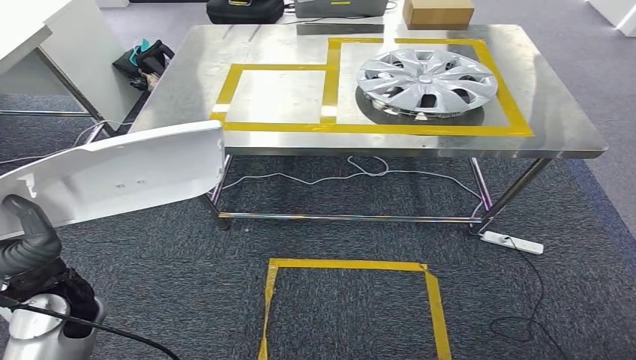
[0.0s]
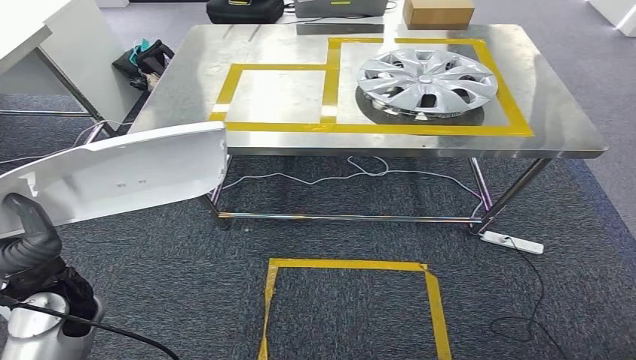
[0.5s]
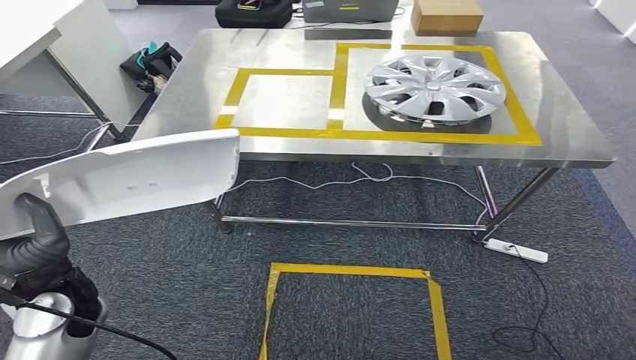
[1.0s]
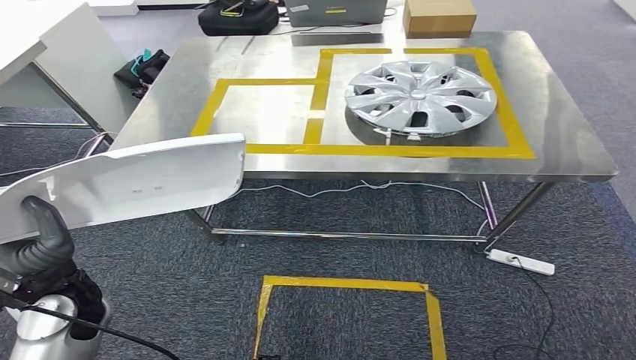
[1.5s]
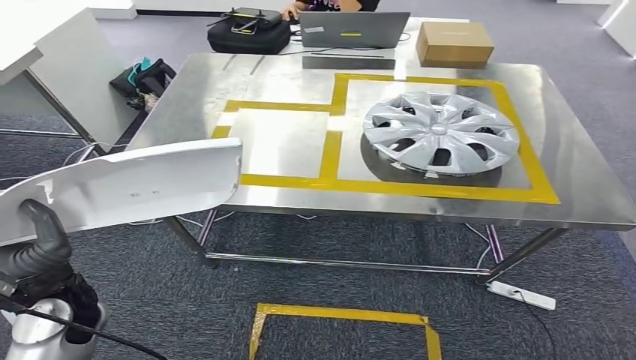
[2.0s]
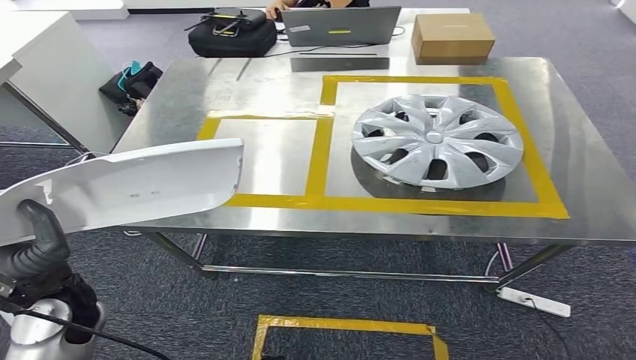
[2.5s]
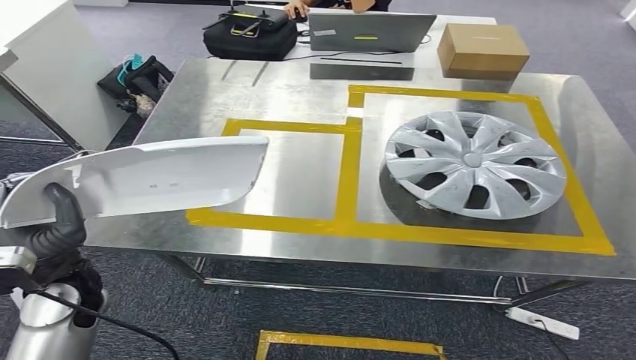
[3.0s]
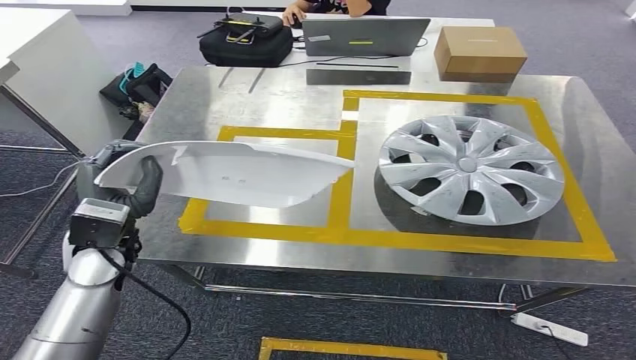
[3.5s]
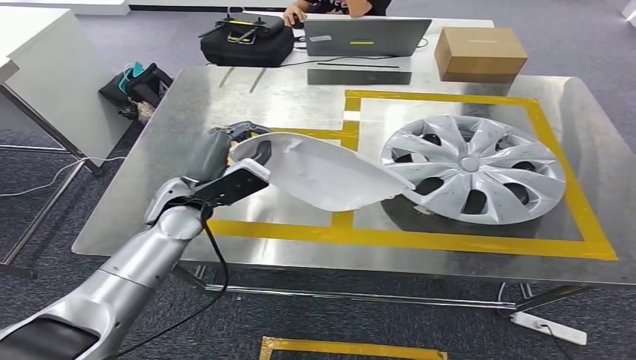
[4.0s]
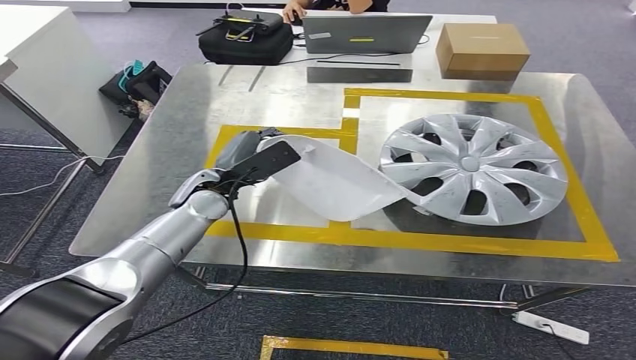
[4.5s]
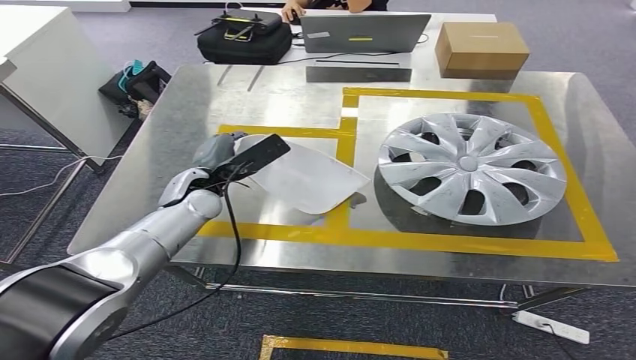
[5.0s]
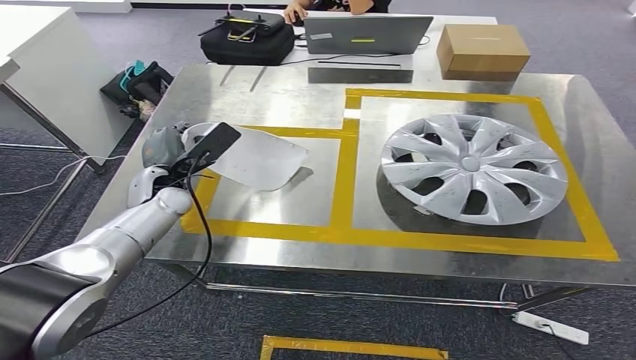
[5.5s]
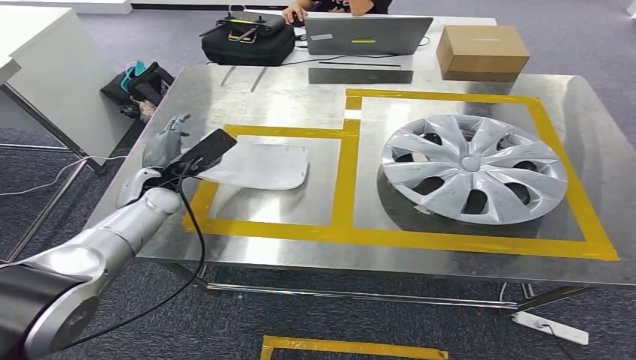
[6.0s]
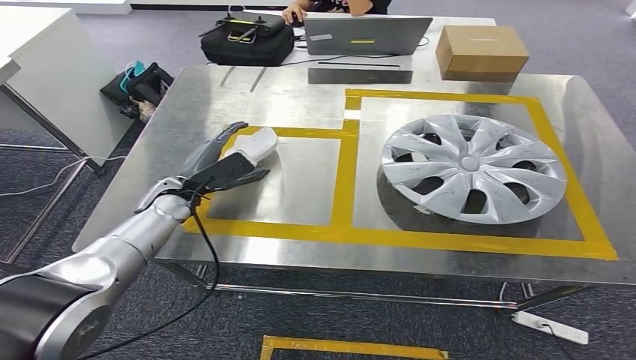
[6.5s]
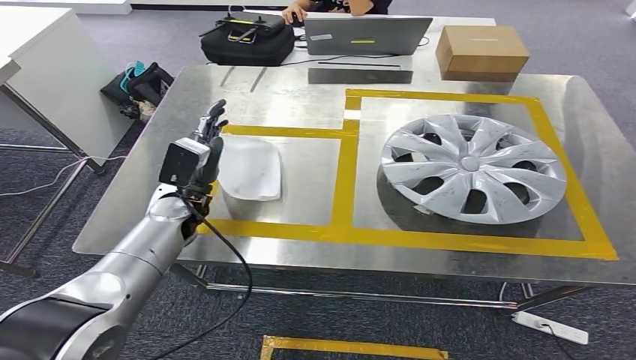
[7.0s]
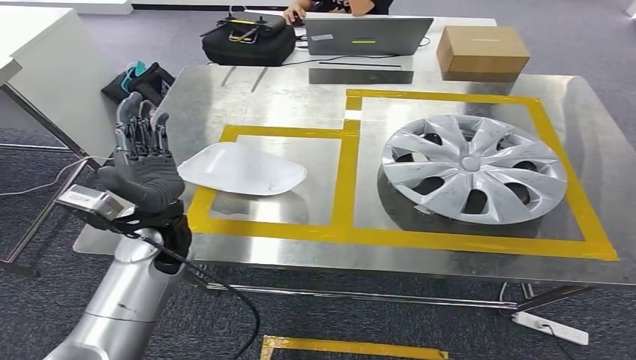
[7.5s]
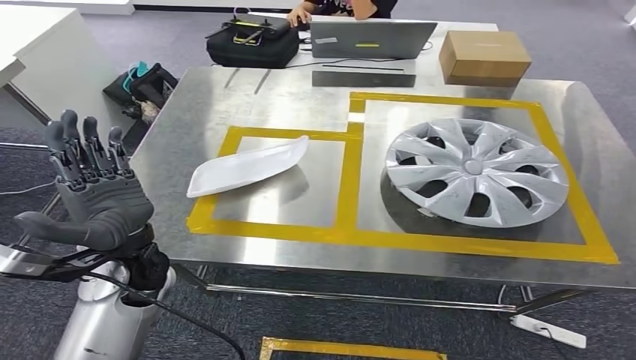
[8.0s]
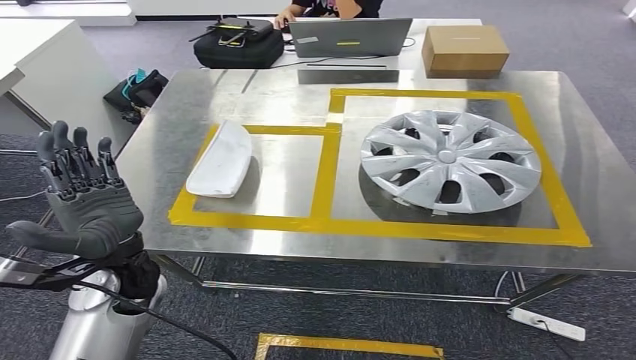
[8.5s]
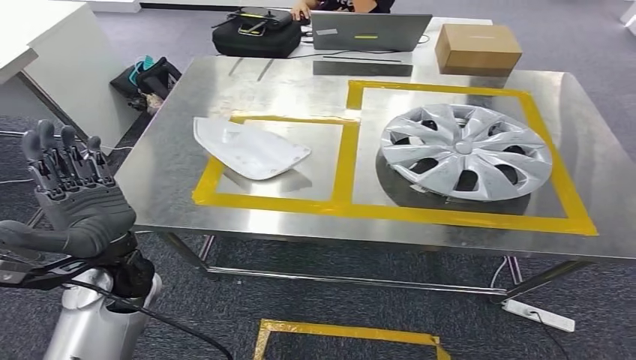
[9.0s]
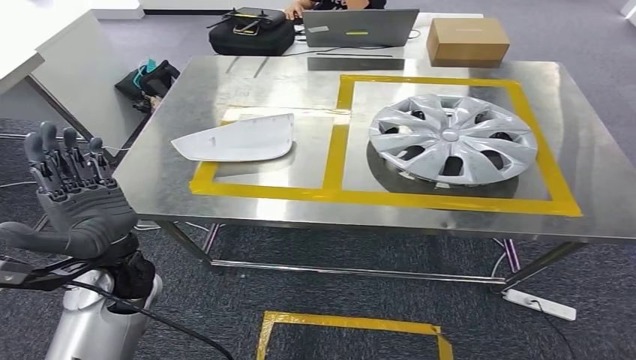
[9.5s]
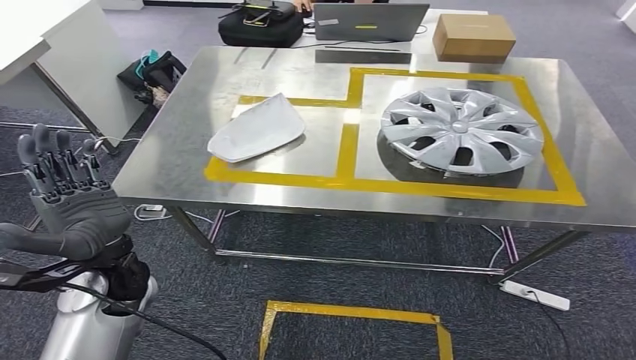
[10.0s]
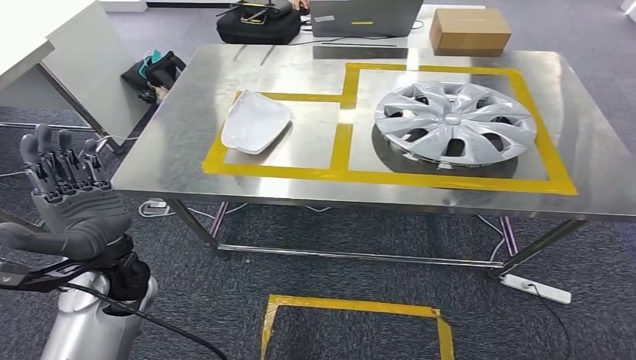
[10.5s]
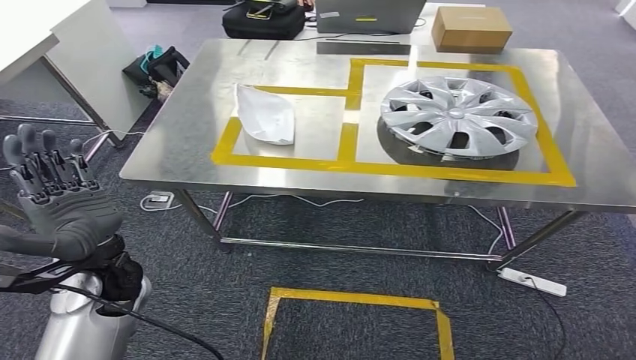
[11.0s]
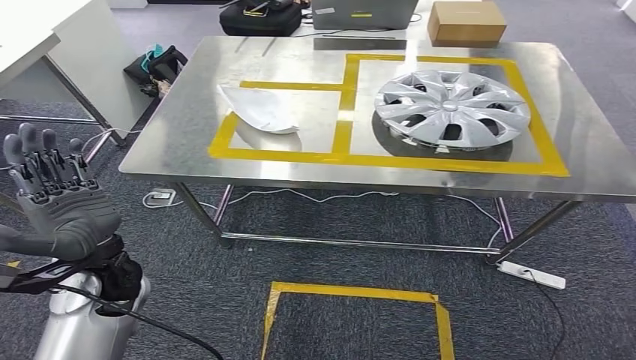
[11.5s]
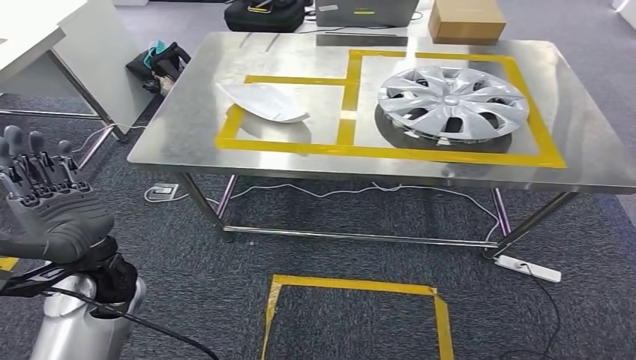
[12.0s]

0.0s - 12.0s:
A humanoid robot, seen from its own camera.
Step, 0.0s - 8.5s: Insert the small parts into the corresponding holes on the workbench.

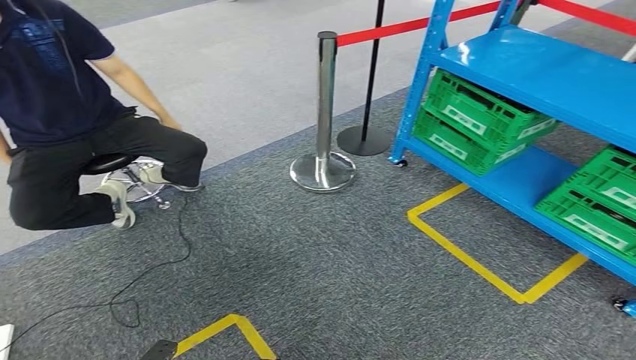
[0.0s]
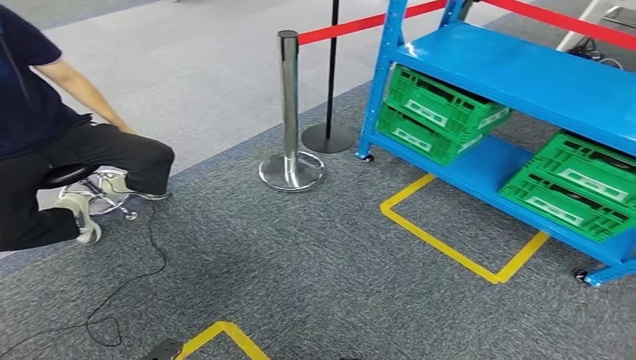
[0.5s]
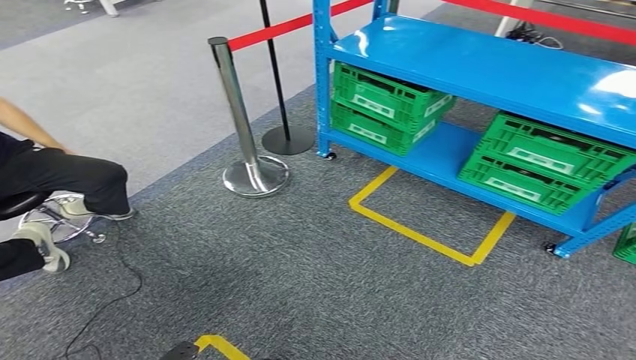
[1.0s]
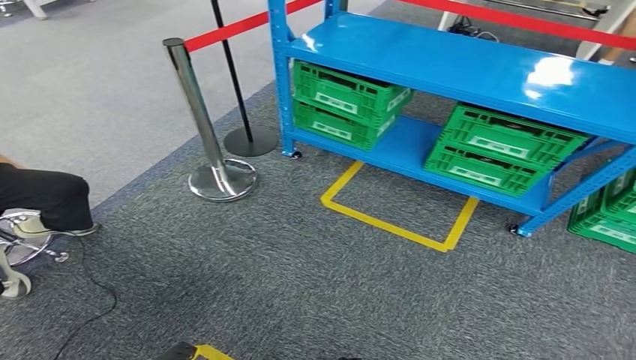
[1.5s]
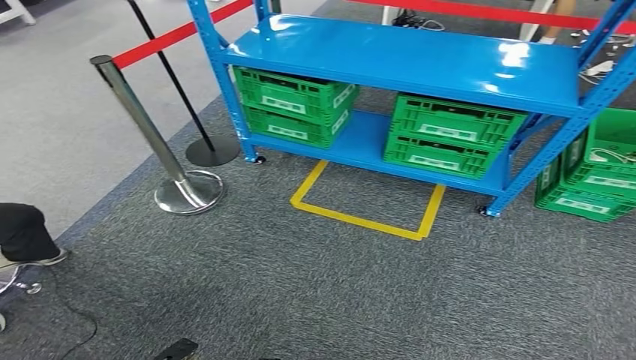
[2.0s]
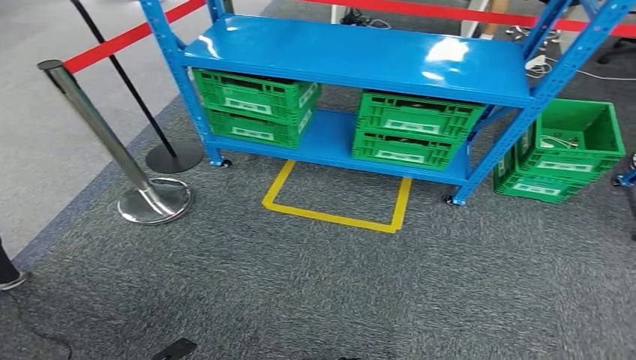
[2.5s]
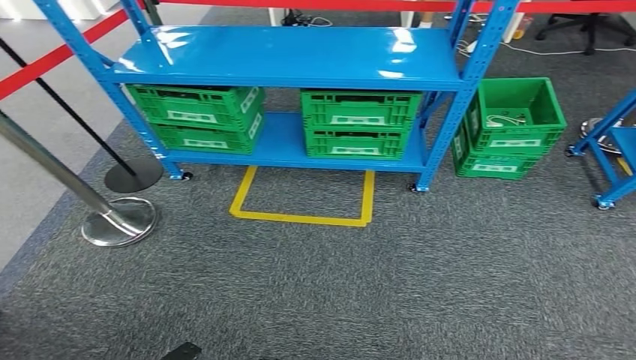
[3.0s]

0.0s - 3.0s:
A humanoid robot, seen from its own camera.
Step, 0.0s - 3.0s: Move to the initial position at the workbench.
